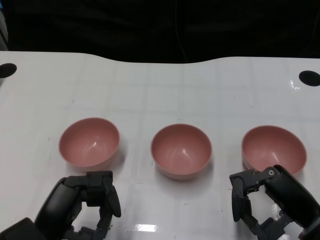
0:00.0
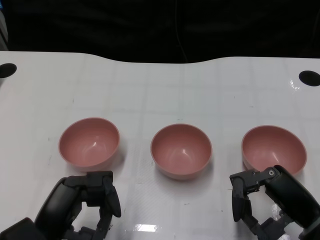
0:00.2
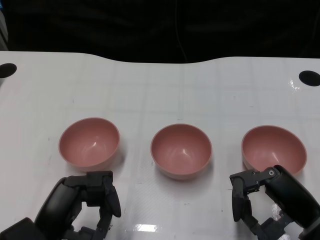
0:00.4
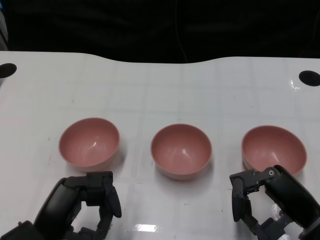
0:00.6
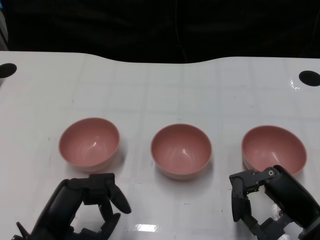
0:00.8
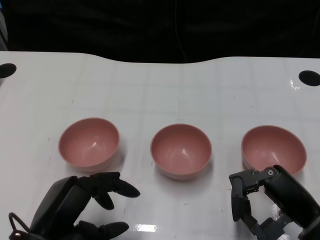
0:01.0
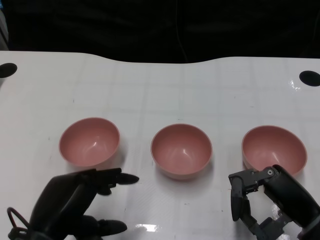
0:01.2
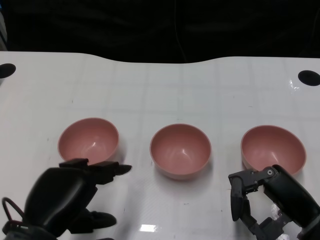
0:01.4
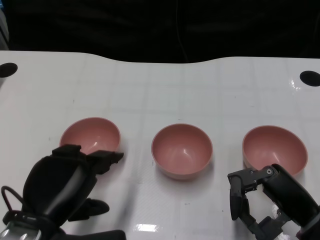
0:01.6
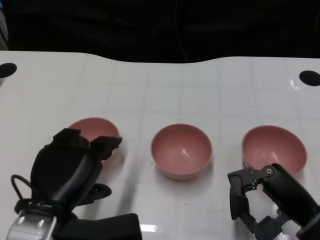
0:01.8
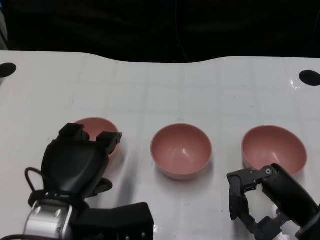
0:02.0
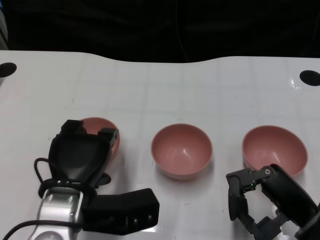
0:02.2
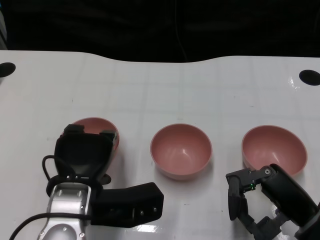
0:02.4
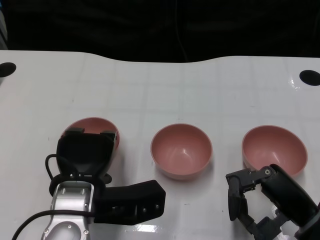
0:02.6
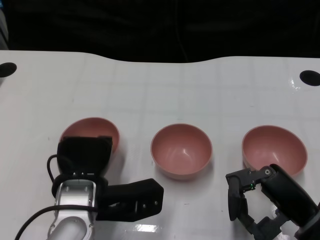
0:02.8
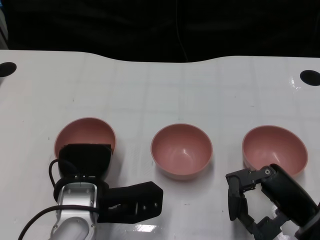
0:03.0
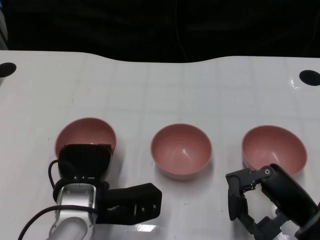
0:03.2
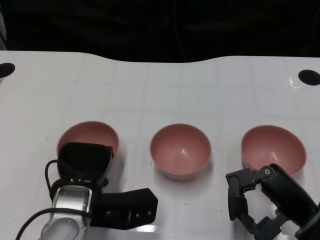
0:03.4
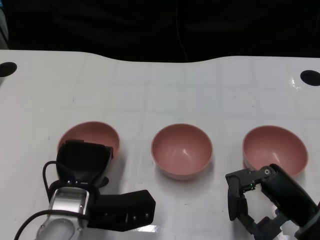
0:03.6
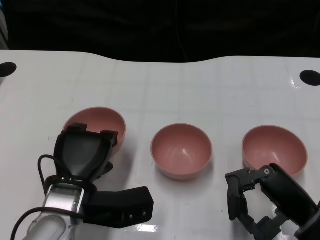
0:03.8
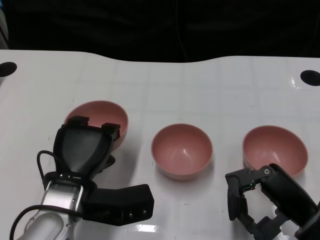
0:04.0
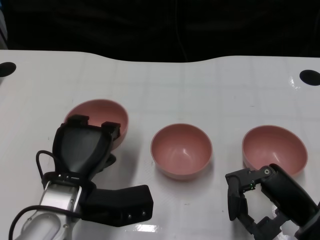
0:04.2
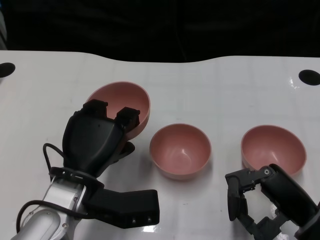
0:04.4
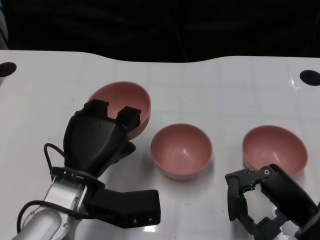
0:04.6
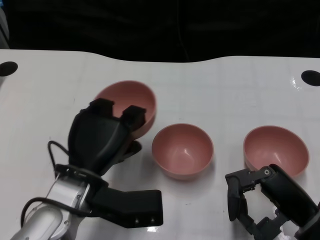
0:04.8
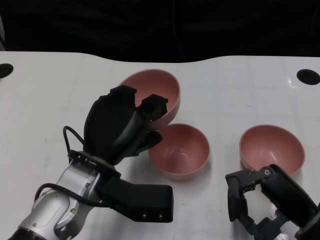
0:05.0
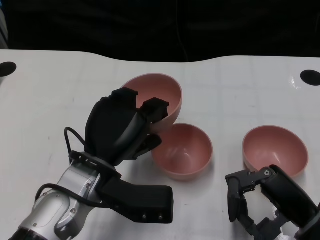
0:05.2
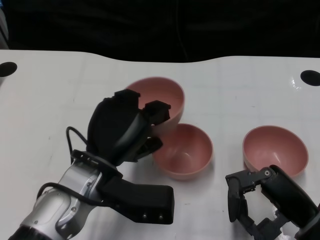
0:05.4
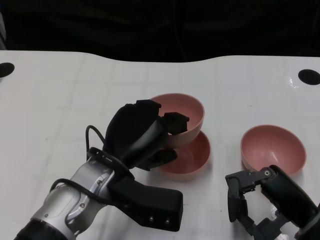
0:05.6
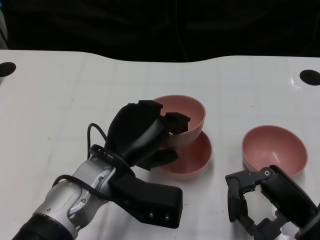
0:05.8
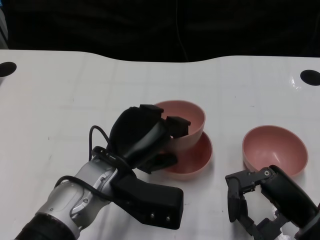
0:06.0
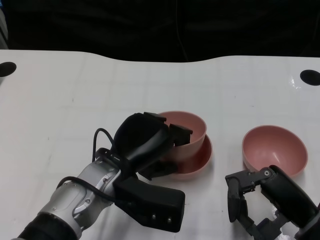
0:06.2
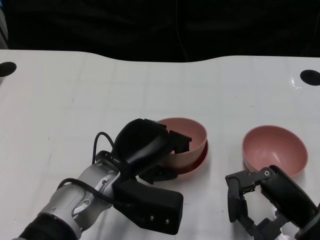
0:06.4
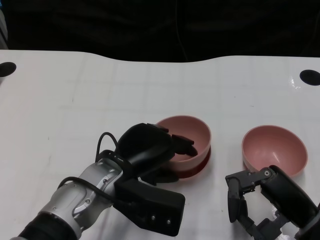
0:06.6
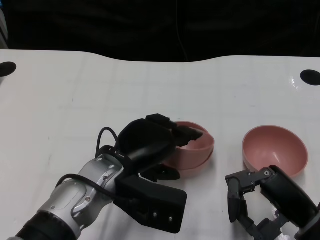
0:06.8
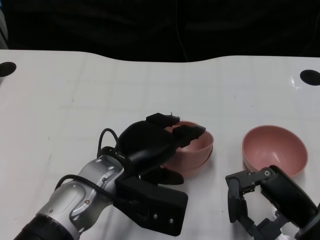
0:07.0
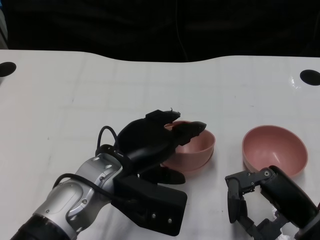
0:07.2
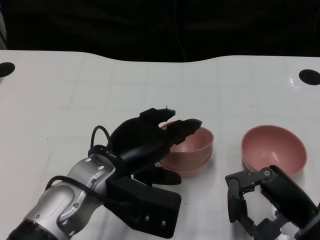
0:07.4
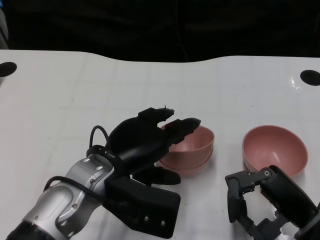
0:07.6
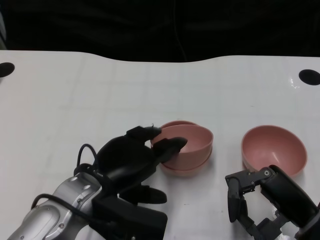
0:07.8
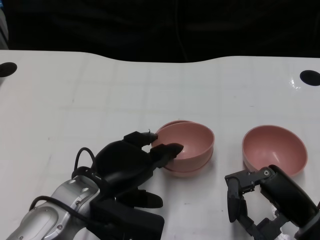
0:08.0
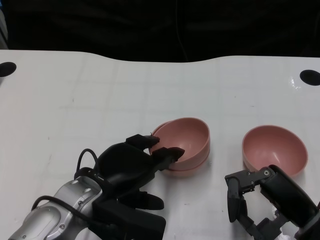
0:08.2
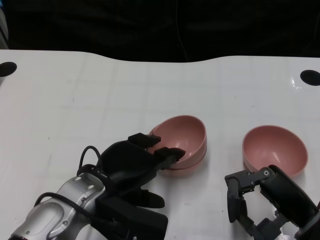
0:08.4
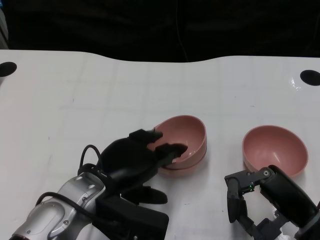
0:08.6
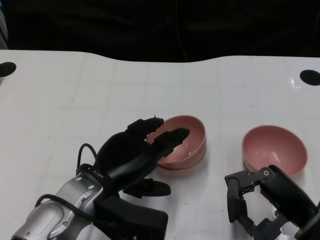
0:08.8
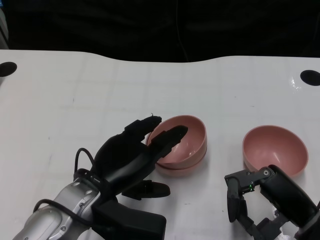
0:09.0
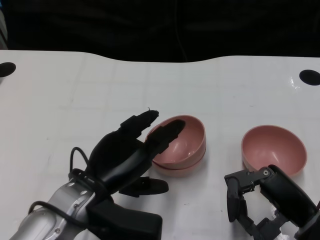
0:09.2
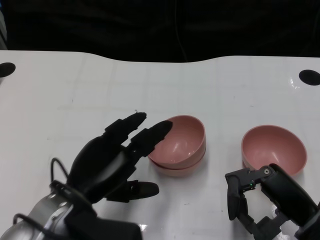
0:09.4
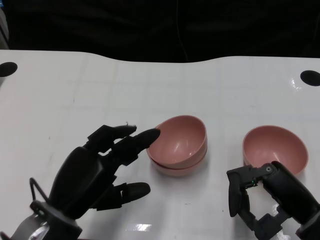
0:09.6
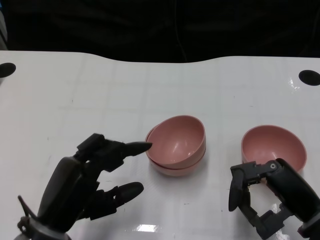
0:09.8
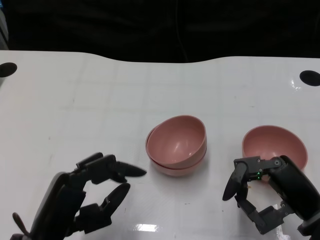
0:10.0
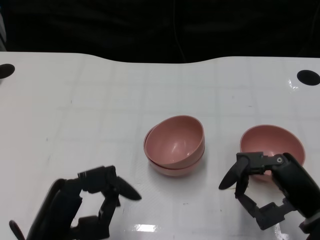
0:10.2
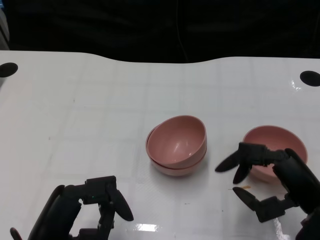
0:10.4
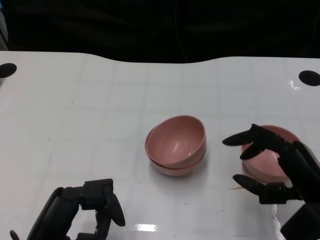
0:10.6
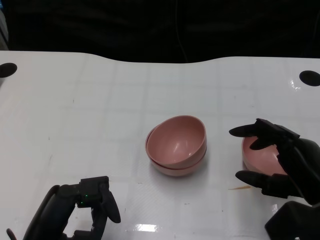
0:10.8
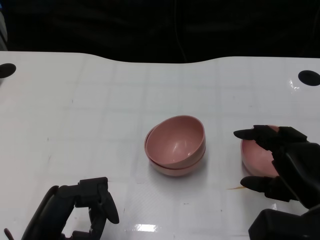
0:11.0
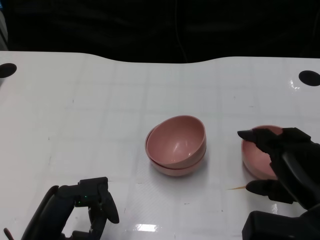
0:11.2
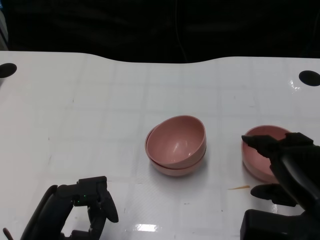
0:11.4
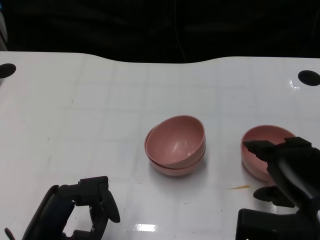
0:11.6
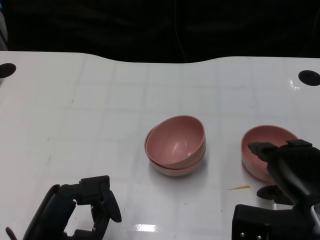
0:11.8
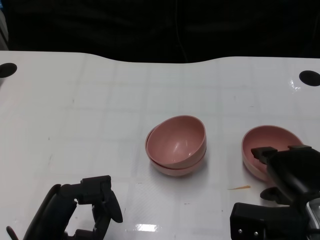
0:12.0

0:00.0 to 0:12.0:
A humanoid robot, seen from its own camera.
Task of the whole recording: Pick up the bowl on one side of the table and place it on top of the middle bowl, then pick up the bowl on the other side of the table and place it on top of the middle bowls.
Step, 0:00.8 to 0:03.6: Grasp the bowl on the left with the left gripper.
Step, 0:03.8 to 0:08.6: Place the bowl on the left onto the bowl in the middle with left gripper.
0:01.6 to 0:03.0: The left hand heads forward and to the right, covering some 10 cm.
0:06.0 to 0:07.6: There are only small adjustments of the hands.
0:07.6 to 0:09.0: The hands make only small movements.
0:09.0 to 0:10.4: The left hand is displaced backward and to the left by some 10 cm.

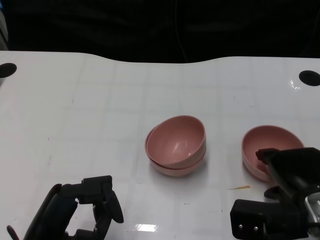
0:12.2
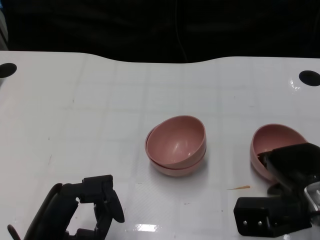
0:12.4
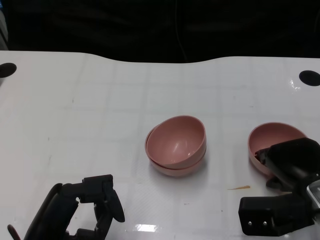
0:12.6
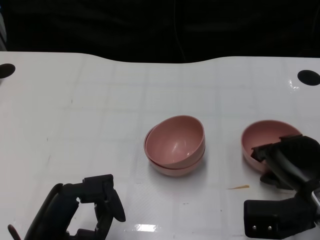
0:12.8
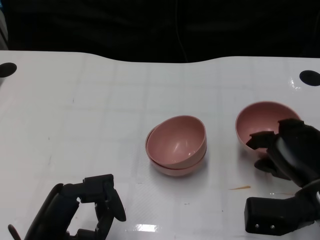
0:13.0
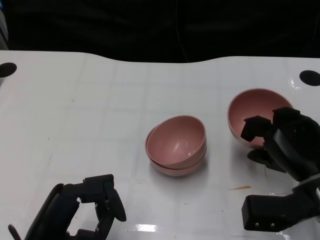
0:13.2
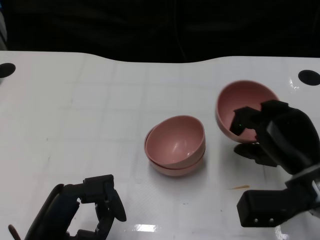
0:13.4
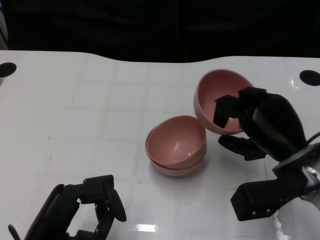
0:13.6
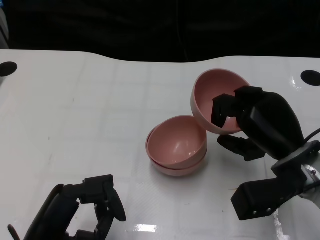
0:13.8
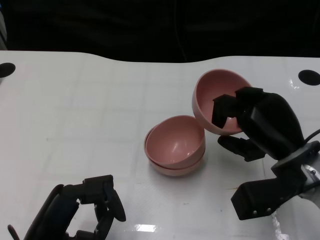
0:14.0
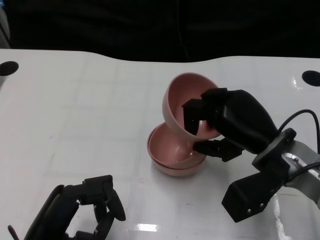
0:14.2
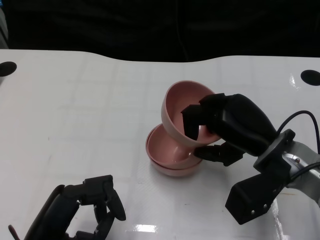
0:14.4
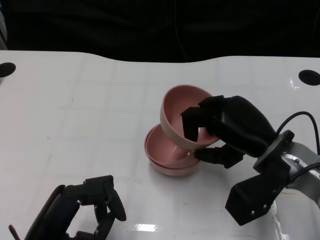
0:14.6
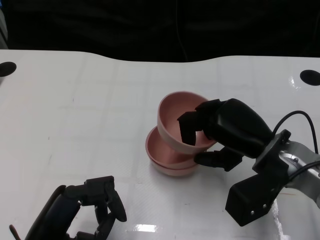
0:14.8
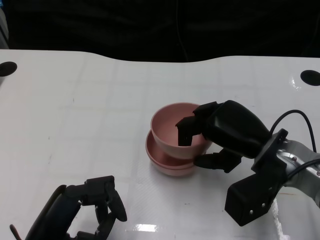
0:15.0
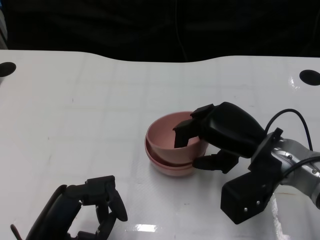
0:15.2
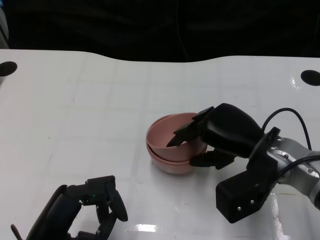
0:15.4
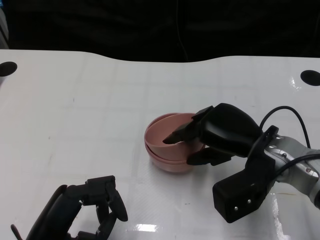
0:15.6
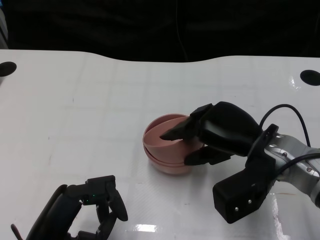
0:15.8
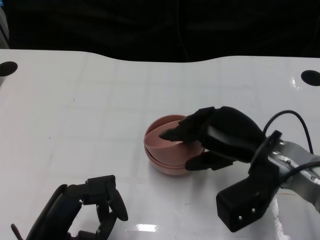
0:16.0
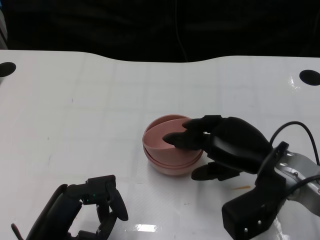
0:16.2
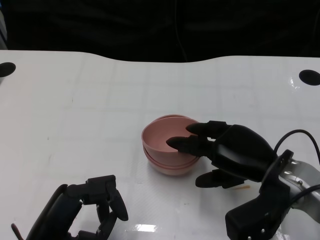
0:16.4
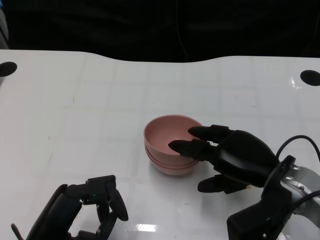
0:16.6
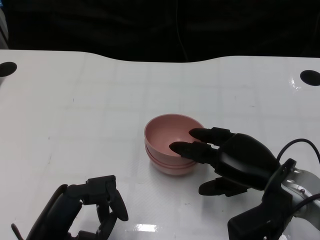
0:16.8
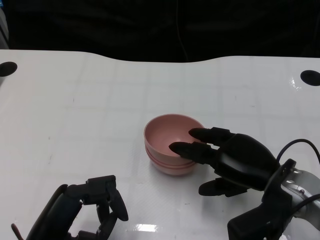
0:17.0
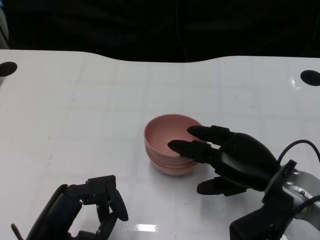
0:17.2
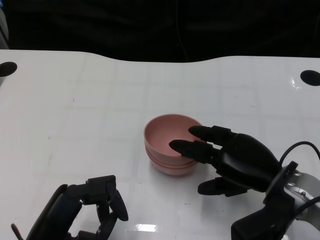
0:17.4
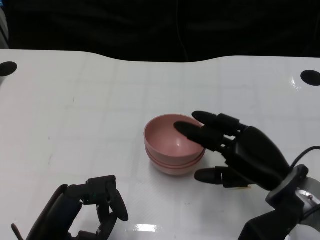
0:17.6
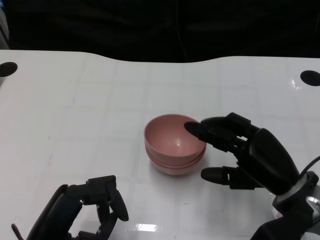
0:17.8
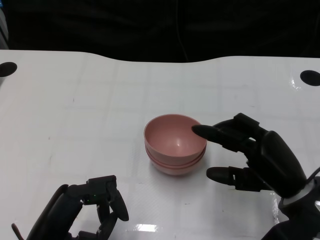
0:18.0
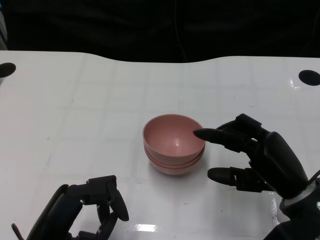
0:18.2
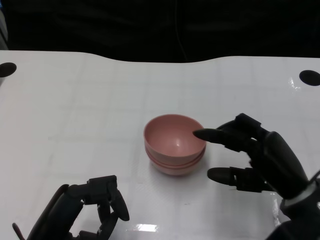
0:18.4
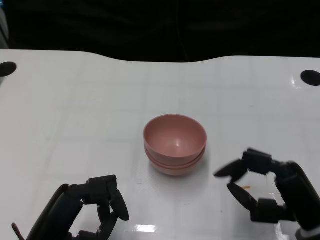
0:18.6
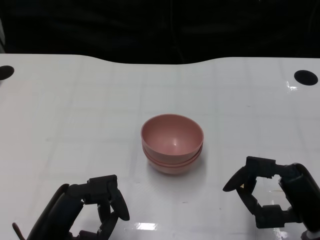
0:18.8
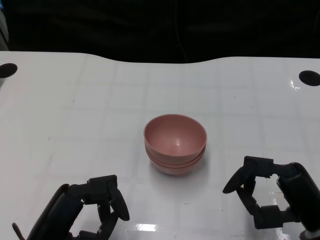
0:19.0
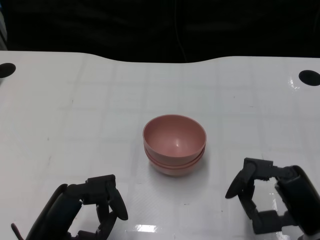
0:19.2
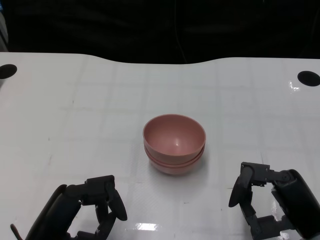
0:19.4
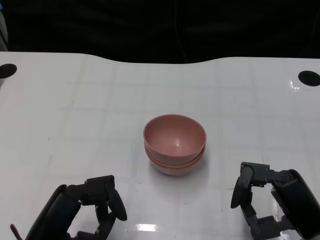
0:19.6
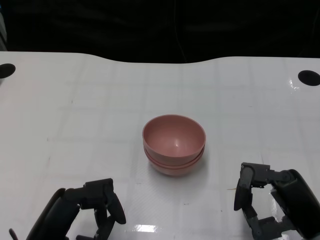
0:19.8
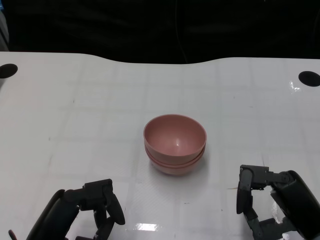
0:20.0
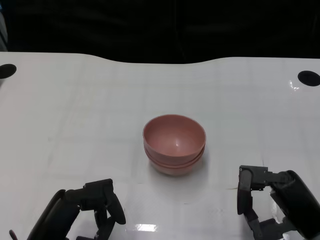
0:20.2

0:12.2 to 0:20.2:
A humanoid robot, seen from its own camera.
Task of the whole recording: Pick up the bowl on one side of the table and place it on top of the middle bowl, then pick up the bowl on the other side of the table and place it on top of the middle bowls.
Step, 0:13.0 to 0:17.4: Place the bowl on the right onto the bowl in the middle with right gripper.
0:12.2 to 0:13.8: The right hand travels forward by about 5 cm.
0:15.4 to 0:17.0: The hands move only a little.
0:17.0 to 0:18.6: The right hand is displaced backward by some 5 cm.
0:18.6 to 0:20.2: There are only small adjustments of the hands.

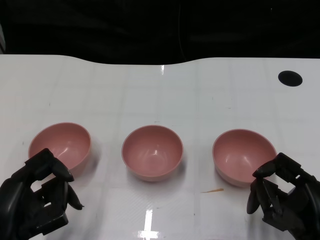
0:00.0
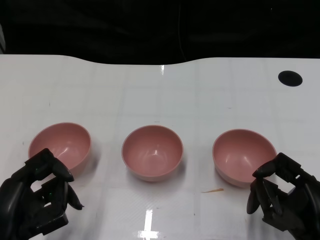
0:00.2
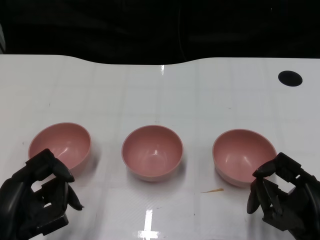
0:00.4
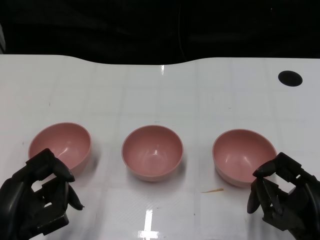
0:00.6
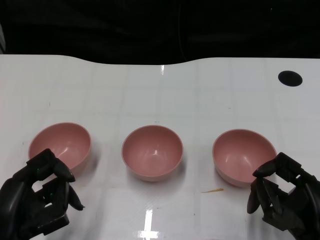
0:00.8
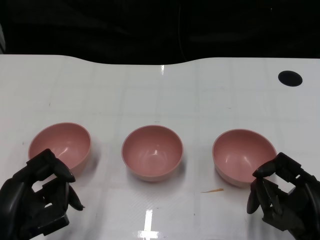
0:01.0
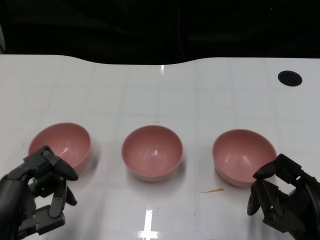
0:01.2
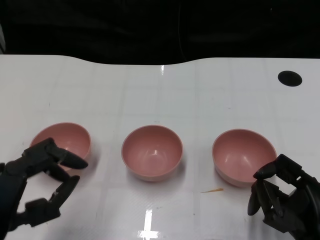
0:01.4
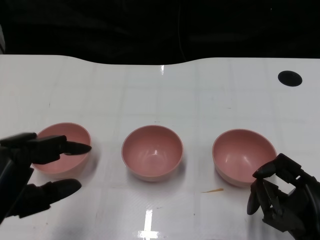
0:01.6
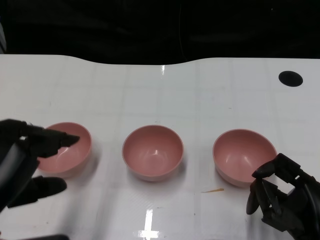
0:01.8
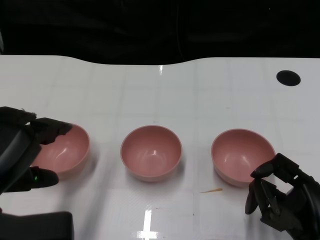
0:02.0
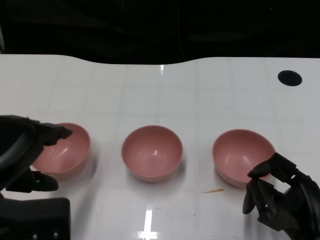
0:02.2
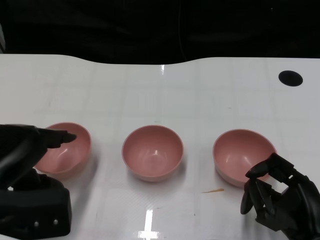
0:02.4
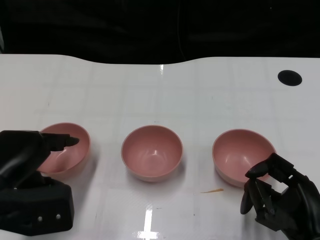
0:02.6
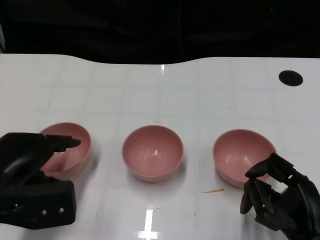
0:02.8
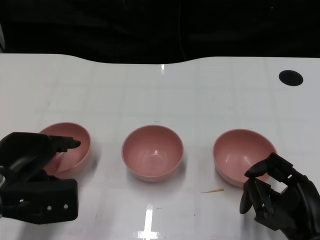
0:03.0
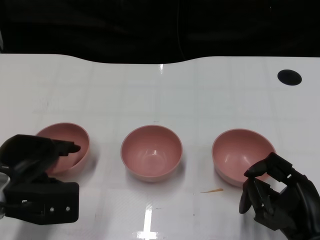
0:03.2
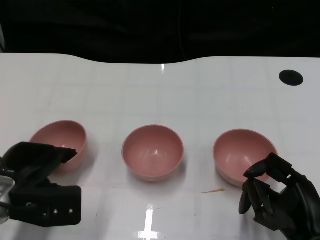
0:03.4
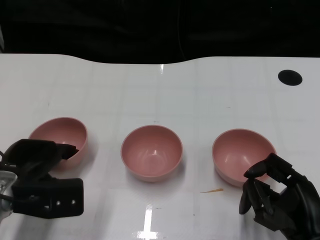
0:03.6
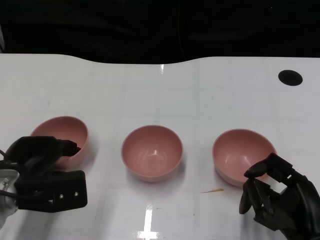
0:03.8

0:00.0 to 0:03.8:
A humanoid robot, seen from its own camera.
Task of the whole recording: Pick up the bowl on one side of the table and place it on top of the middle bowl, then pick up the bowl on the other side of the table and place it on top of the middle bowls.
0:01.2 to 0:02.6: The left hand travels forward by roughly 5 cm.
0:02.6 to 0:03.8: The left hand goes some 10 cm downward and forward.
